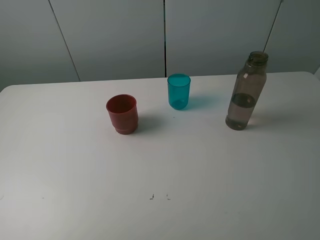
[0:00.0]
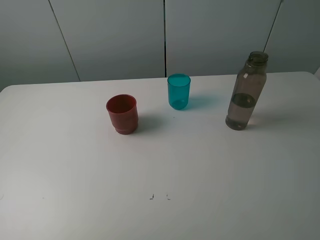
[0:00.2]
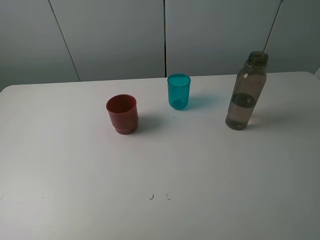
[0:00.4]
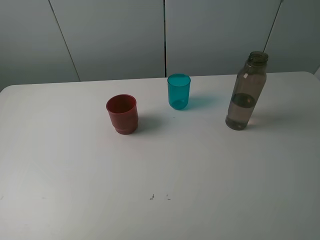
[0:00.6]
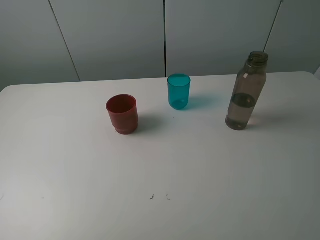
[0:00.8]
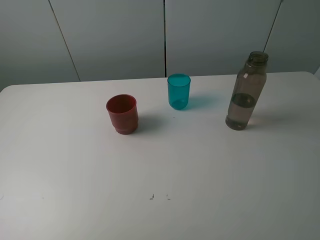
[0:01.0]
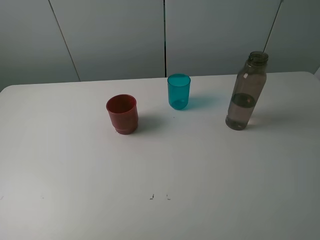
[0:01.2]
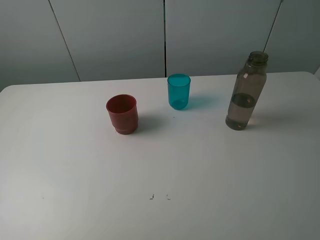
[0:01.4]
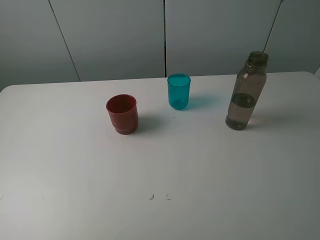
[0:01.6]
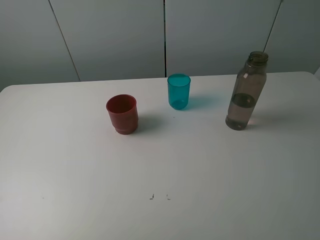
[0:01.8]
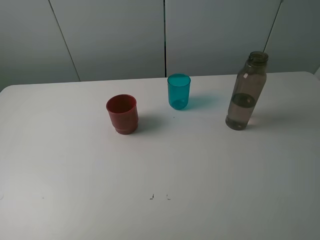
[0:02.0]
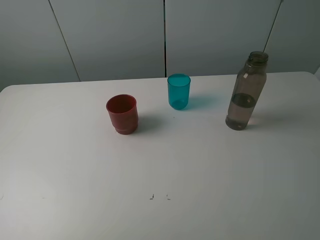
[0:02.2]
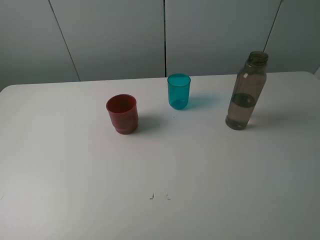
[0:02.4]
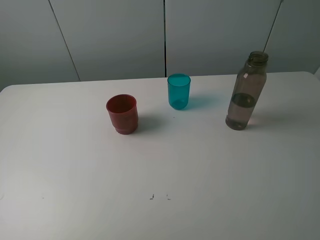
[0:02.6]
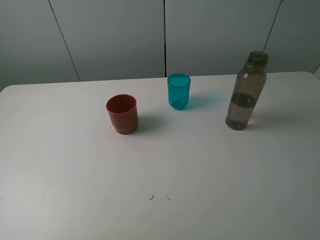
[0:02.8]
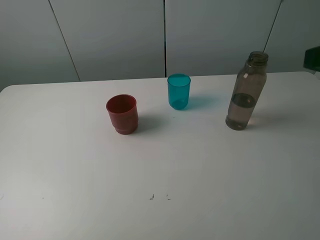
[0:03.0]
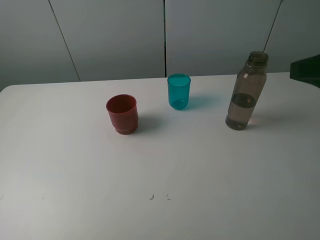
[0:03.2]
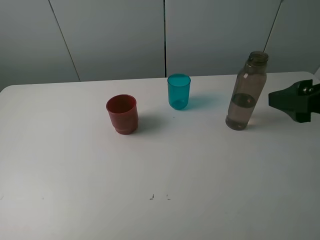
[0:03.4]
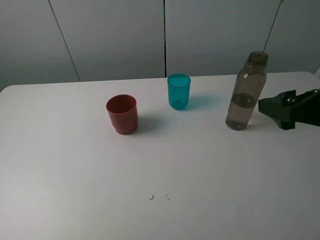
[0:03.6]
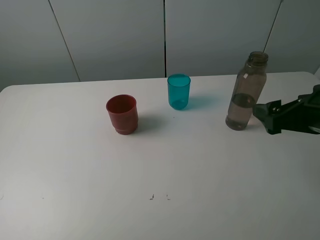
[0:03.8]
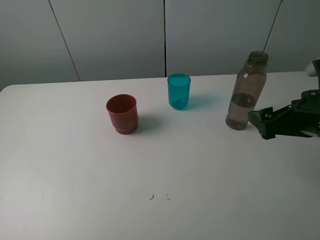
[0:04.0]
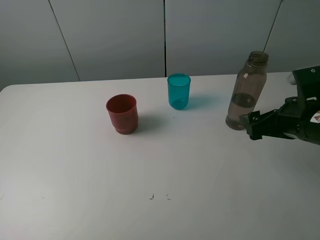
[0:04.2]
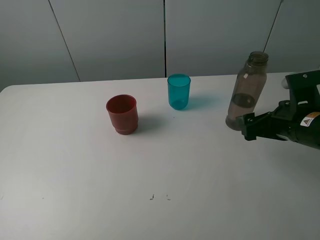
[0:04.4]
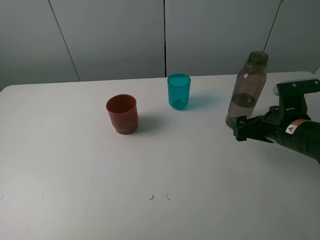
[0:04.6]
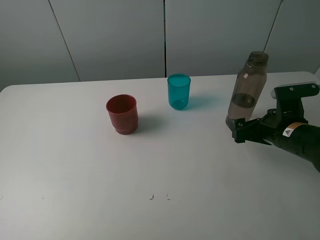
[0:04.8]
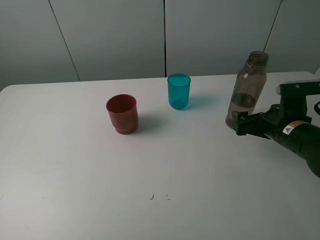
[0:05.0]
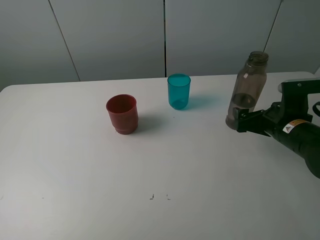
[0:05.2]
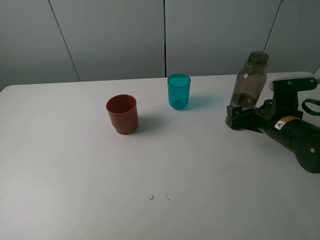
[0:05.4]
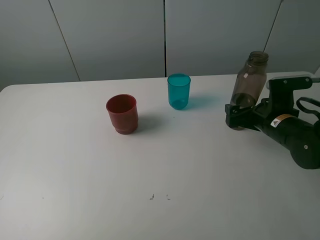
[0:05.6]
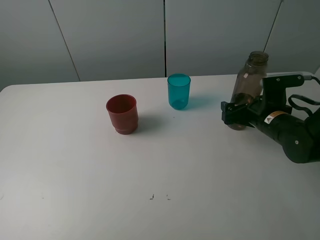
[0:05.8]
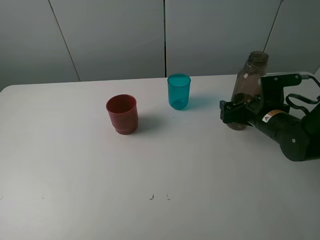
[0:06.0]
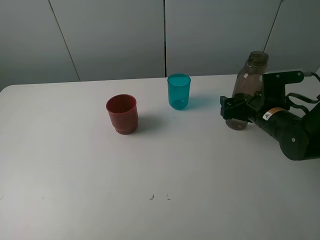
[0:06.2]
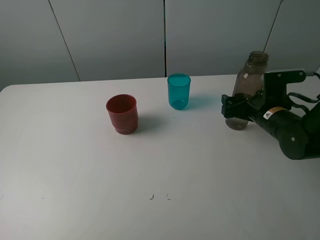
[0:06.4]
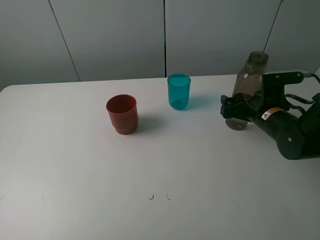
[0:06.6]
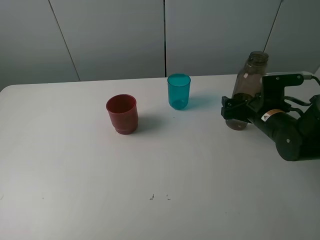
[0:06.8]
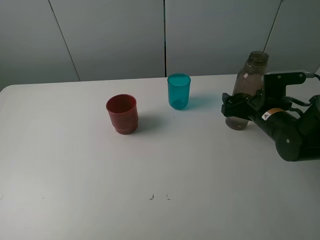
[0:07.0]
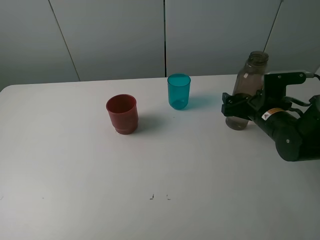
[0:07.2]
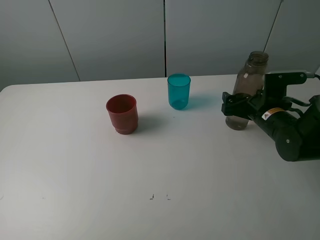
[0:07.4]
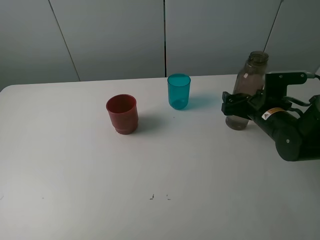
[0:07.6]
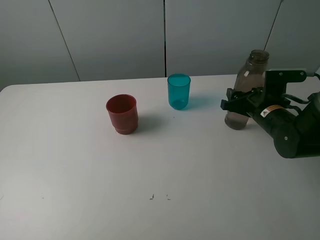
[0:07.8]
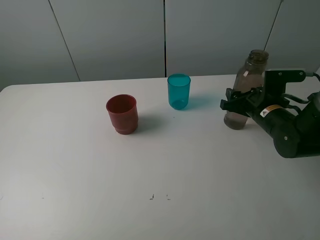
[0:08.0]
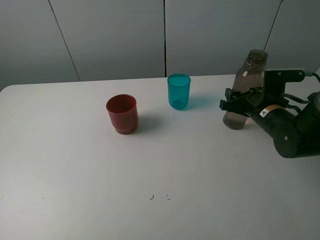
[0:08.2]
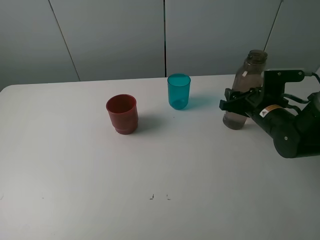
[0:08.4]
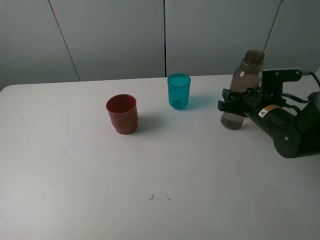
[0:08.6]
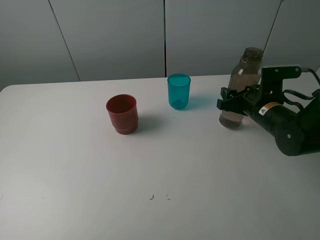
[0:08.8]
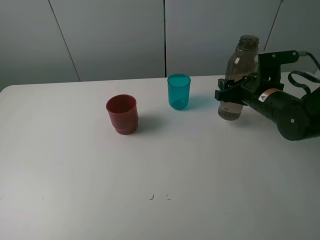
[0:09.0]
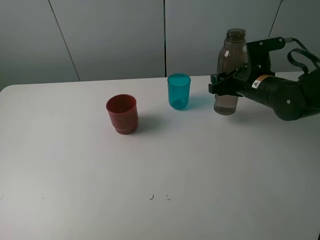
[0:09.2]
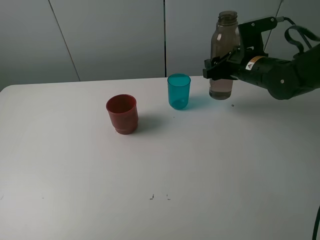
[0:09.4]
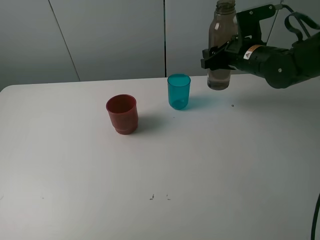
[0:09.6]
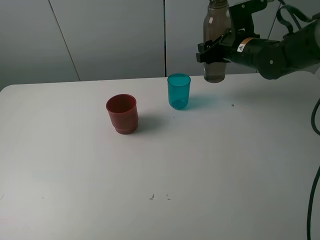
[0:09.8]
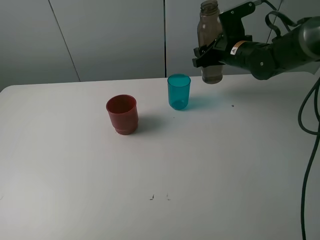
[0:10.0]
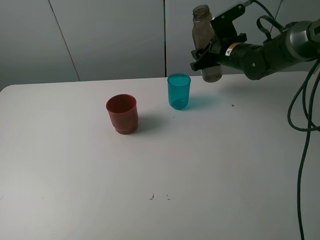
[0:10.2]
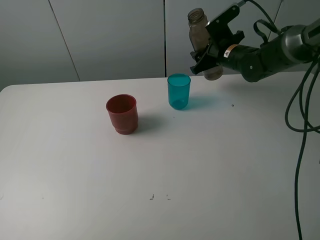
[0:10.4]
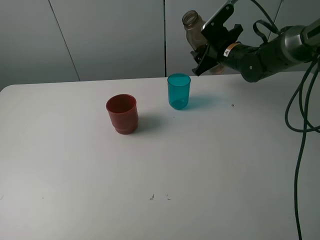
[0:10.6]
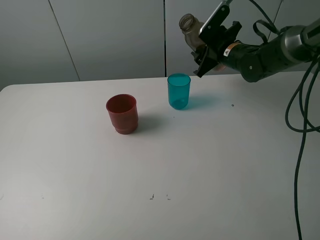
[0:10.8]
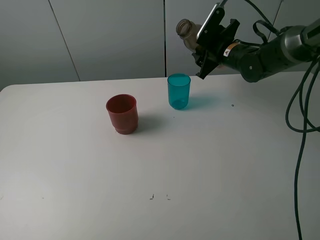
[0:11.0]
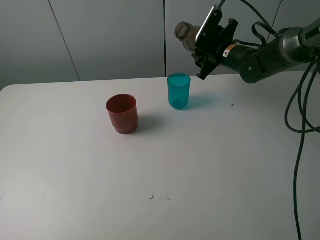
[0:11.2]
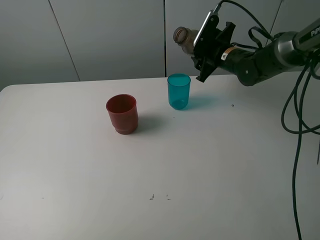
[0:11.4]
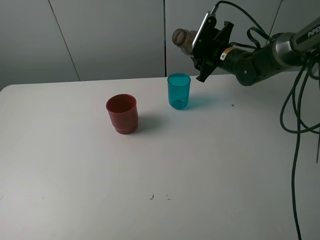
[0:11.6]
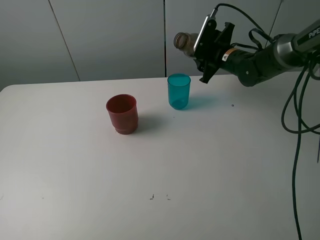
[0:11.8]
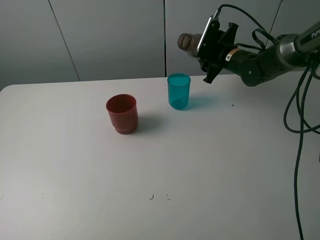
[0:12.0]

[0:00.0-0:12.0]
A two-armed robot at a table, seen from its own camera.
Task of the whole recording: pick up the bottle and pour water into the cup, then pick up the cup containing water and pour it into another cup.
Step, 0:00.0 to 0:08.0: Grasp the brown bottle with the right gripper.
0:00.0 to 0:01.6: The two grippers keep their place.
0:03.0 to 0:04.4: The right gripper moves downward and forward, some 20 cm.
0:04.4 to 0:06.0: The right gripper travels forward by some 5 cm.
0:06.0 to 0:07.6: The grippers make only small movements.
0:07.6 to 0:09.0: The right gripper moves approximately 5 cm, and closes.
0:09.0 to 0:10.4: The right gripper moves forward, roughly 10 cm.

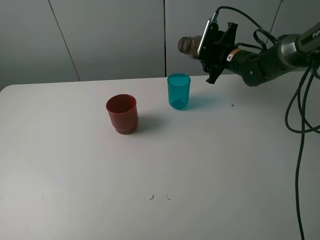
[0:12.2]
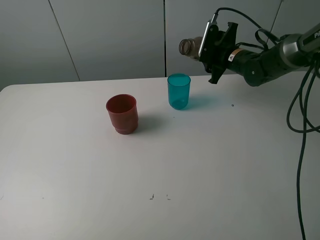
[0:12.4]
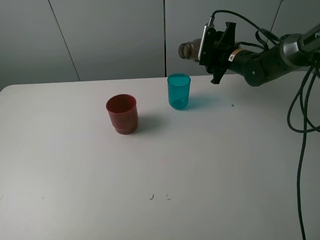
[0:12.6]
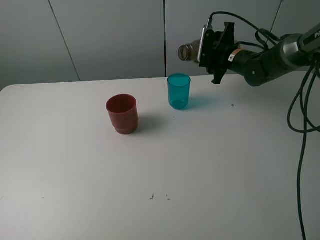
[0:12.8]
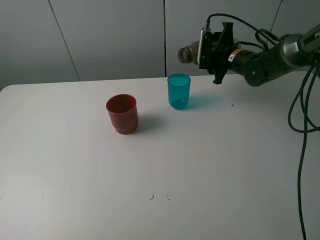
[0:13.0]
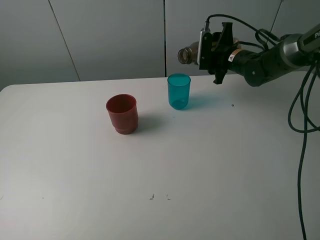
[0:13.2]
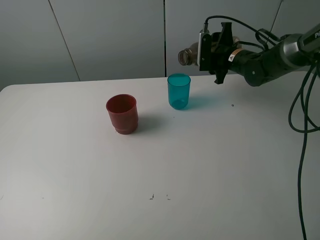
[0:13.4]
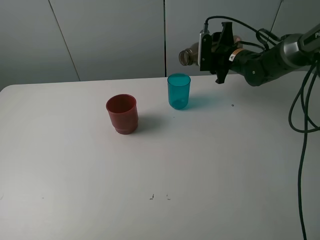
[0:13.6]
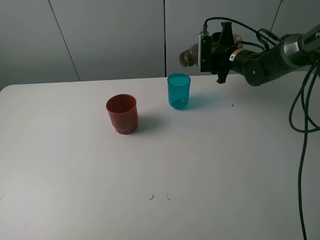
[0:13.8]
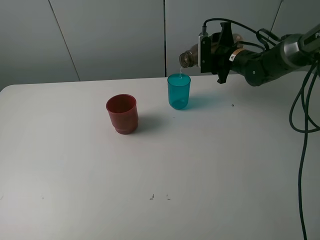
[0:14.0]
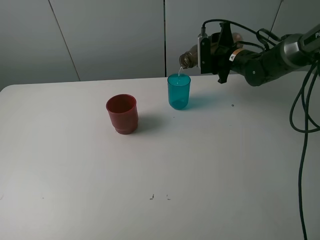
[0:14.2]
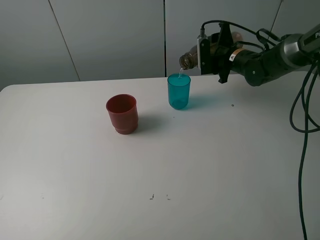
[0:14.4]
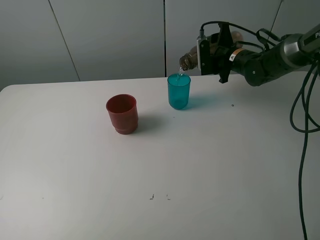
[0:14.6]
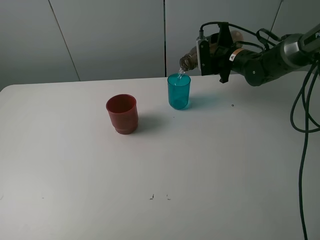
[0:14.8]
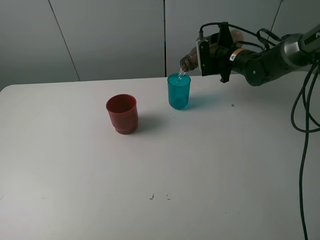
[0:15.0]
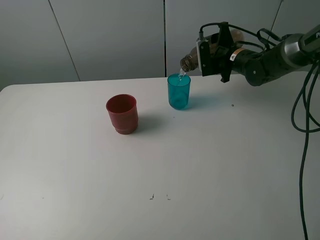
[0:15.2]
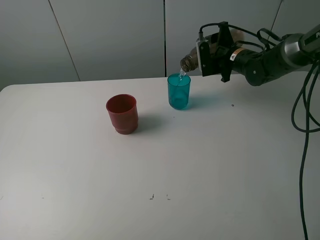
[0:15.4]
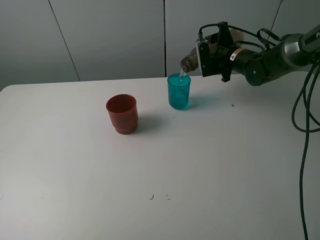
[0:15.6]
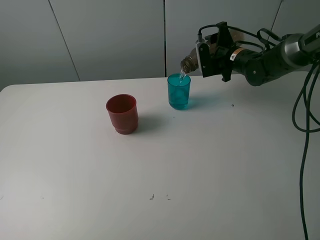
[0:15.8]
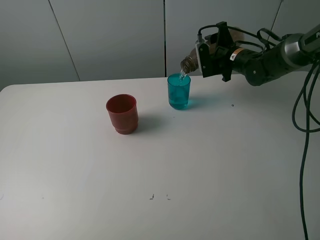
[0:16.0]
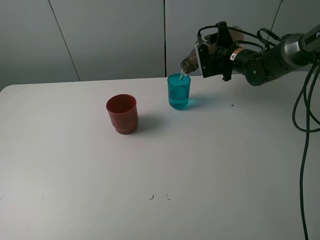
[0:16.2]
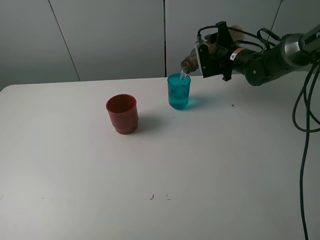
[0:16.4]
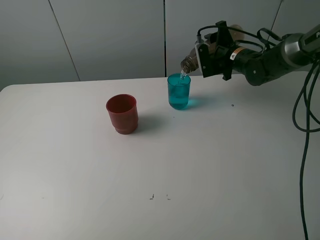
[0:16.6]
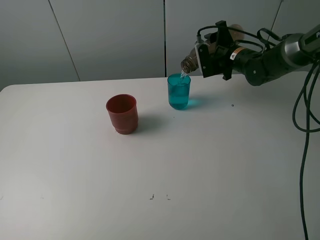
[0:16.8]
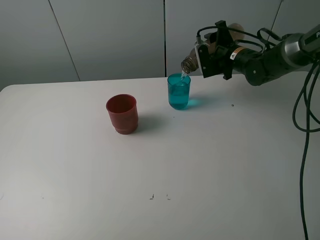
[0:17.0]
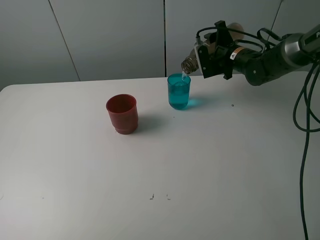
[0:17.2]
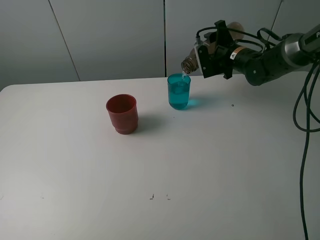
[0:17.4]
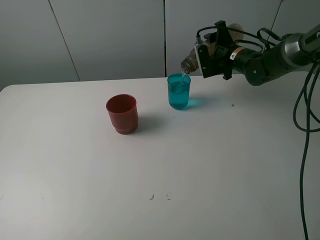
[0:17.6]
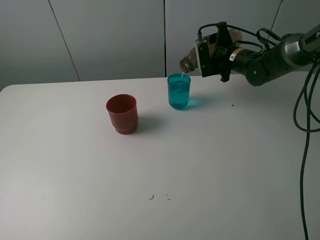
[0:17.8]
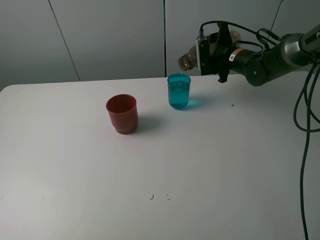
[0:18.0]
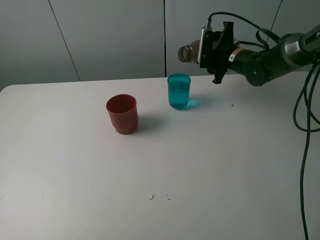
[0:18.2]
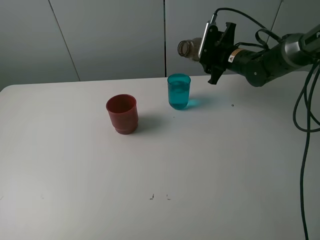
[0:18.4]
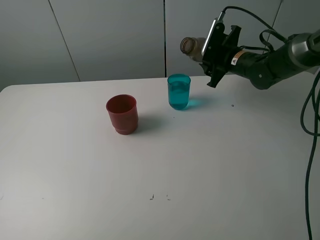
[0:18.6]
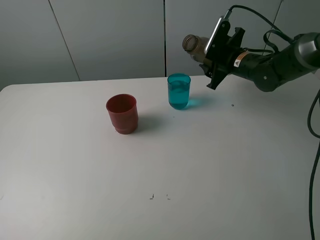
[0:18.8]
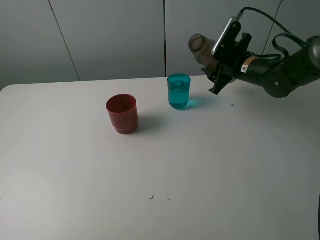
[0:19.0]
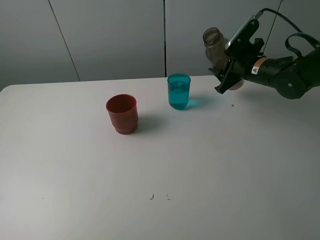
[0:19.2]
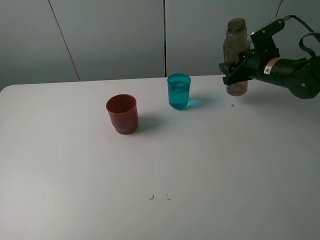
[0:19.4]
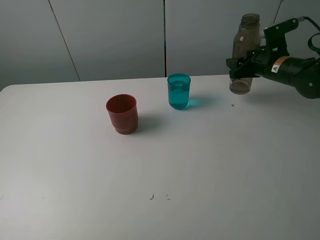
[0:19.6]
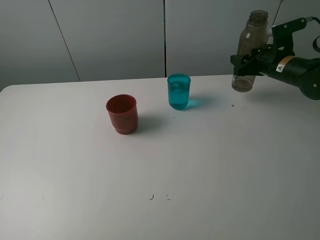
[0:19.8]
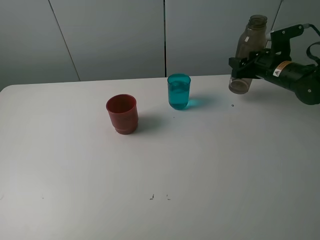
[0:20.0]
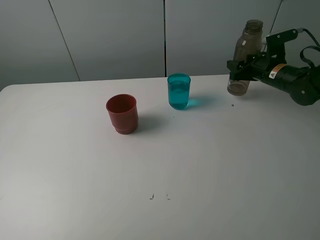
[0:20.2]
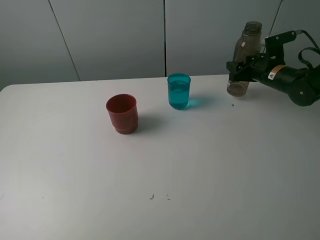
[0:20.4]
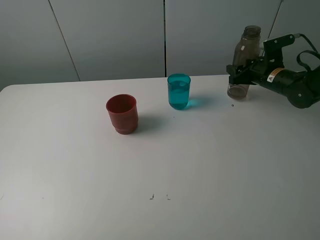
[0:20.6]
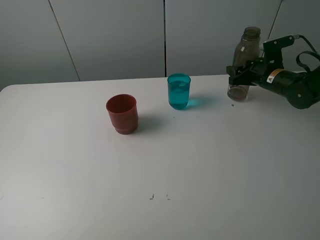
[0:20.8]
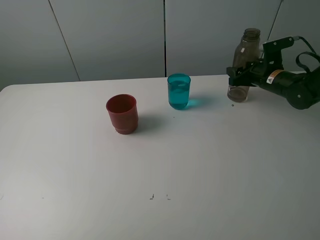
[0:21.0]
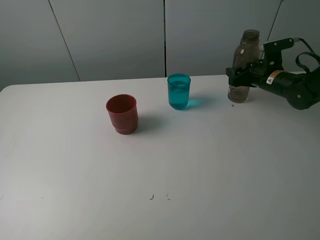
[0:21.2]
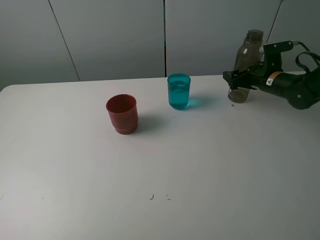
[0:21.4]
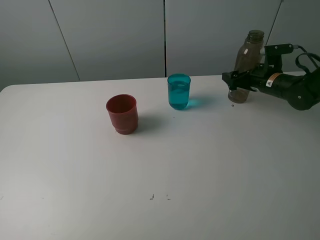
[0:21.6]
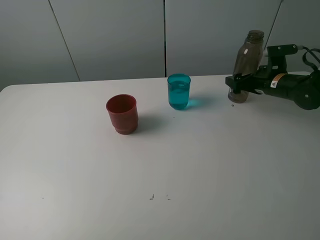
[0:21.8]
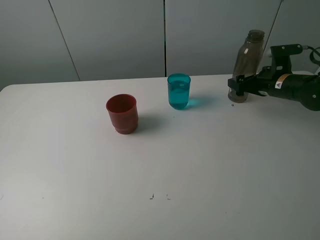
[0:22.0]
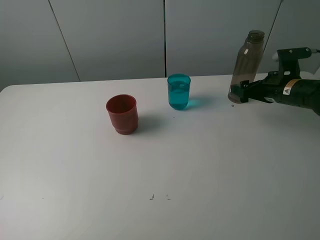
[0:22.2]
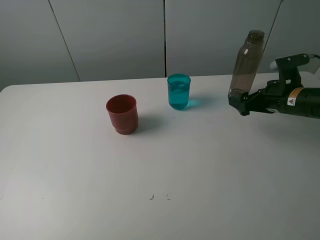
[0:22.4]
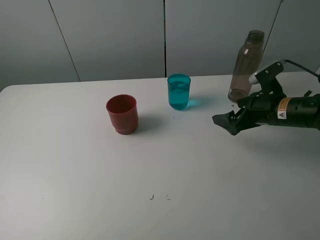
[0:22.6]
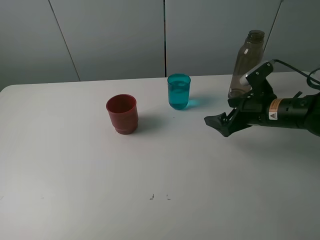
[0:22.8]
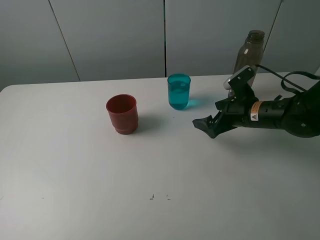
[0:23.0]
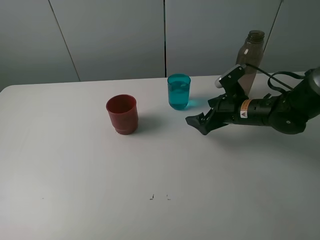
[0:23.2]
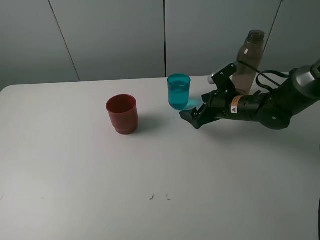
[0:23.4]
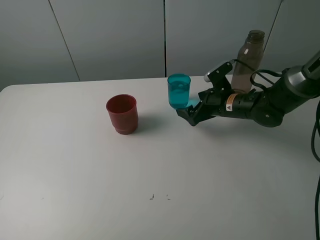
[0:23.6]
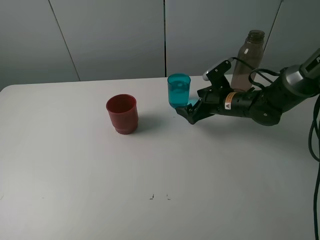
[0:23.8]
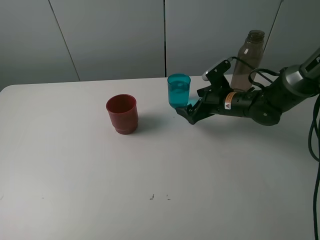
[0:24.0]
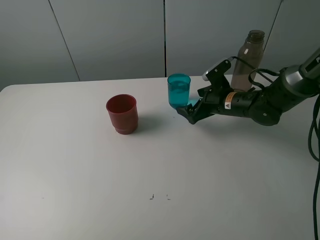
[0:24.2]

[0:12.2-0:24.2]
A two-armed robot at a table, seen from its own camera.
Task of the whole recording: pick up the bottle and pour water into the cup, then pick up the cup containing water and pour it into another cup.
Step, 0:12.2 to 0:18.0: Pour water from brown bottle to blue cup with the right gripper.
Step, 0:18.2 to 0:21.4: Place the brown bottle with the right gripper.
0:13.8 to 0:16.6: There are only small adjustments of the grippers.
0:18.2 to 0:19.8: The right gripper goes roughly 10 cm to the right and backward.
0:19.8 to 0:21.2: The right gripper opens.
0:21.2 to 0:22.6: The right gripper travels backward by roughly 15 cm, and opens up.
0:22.6 to 0:24.2: The right gripper moves to the left and forward, approximately 10 cm.
